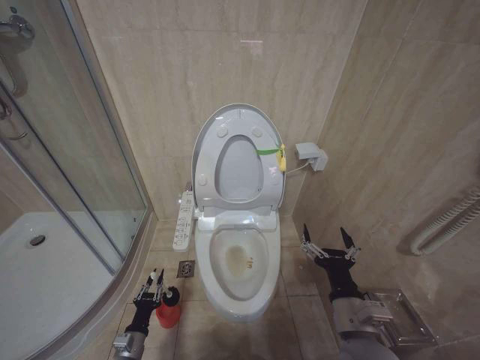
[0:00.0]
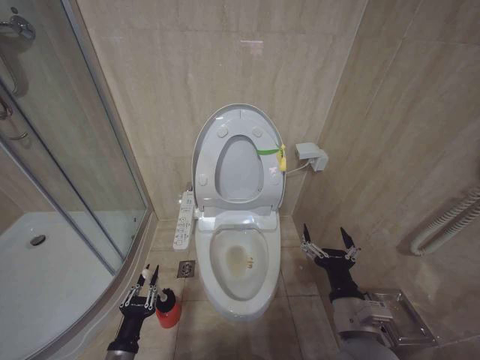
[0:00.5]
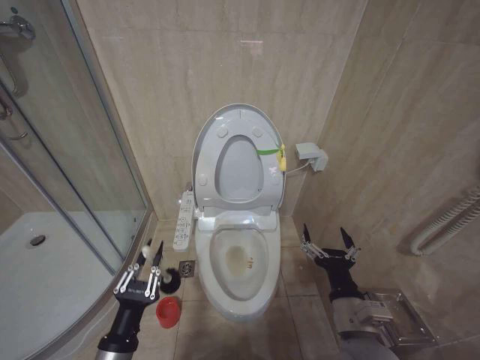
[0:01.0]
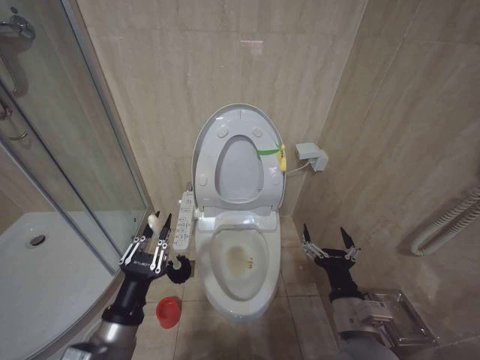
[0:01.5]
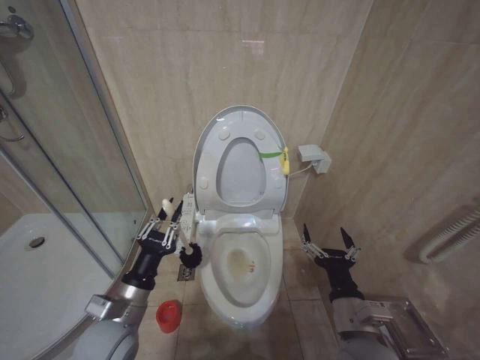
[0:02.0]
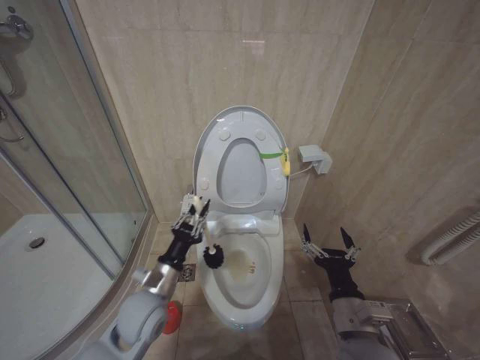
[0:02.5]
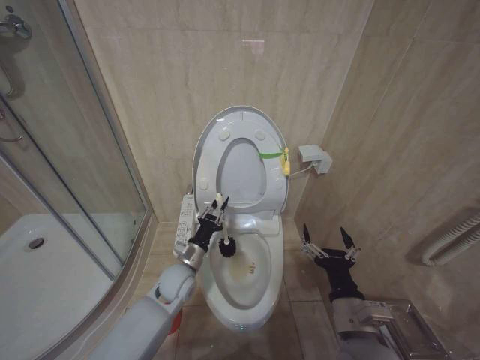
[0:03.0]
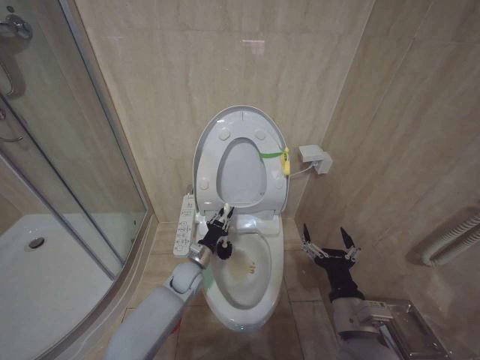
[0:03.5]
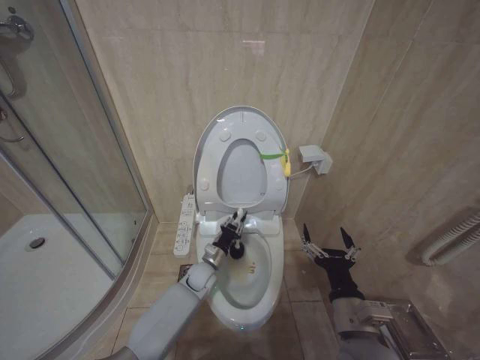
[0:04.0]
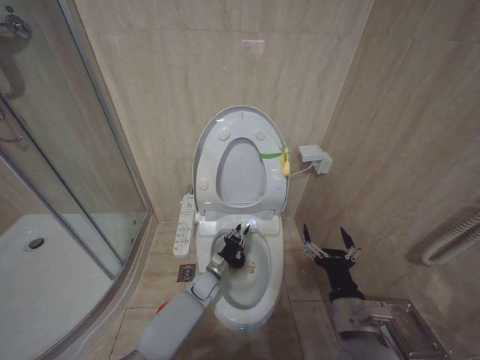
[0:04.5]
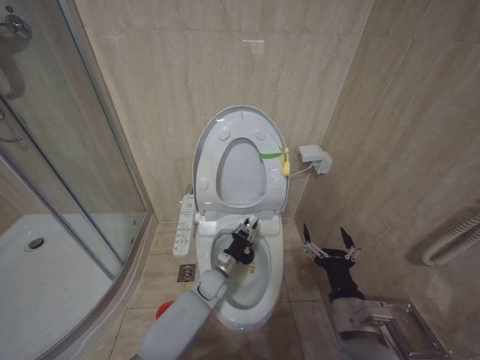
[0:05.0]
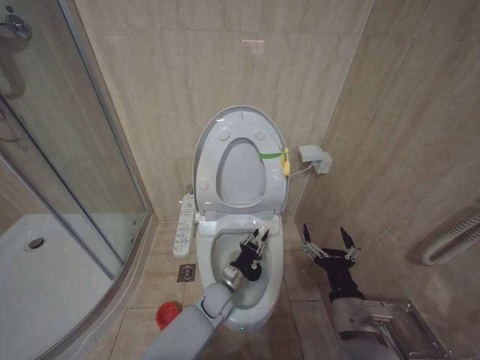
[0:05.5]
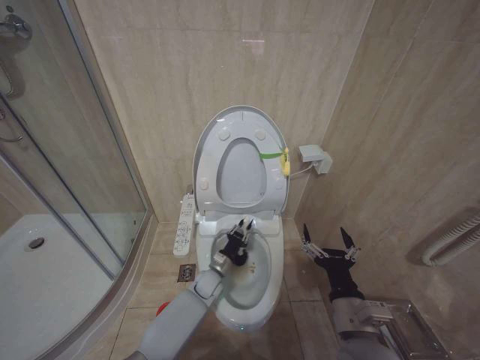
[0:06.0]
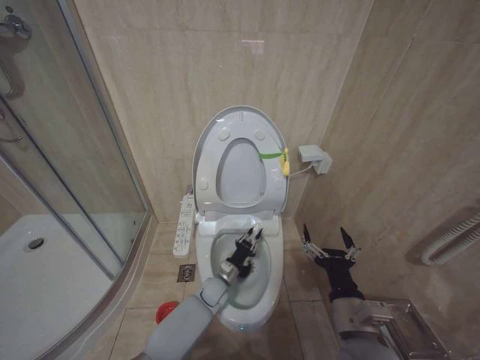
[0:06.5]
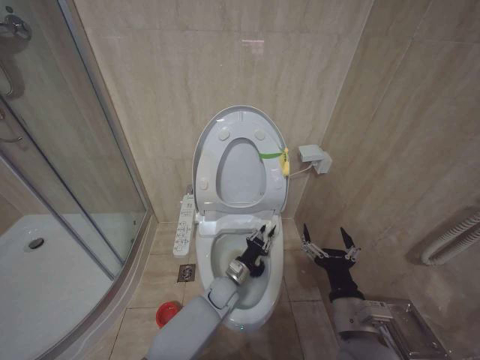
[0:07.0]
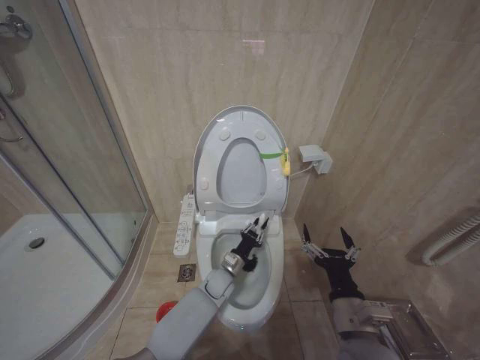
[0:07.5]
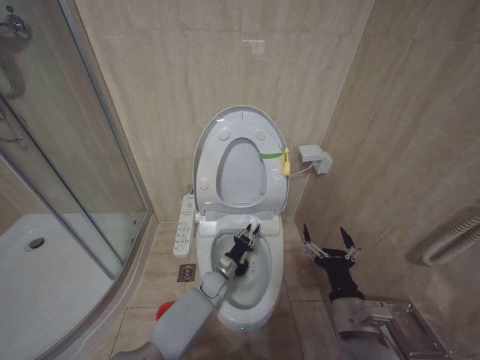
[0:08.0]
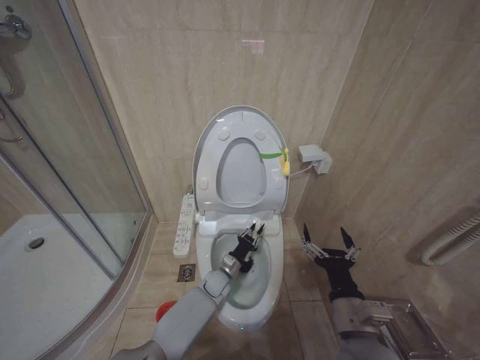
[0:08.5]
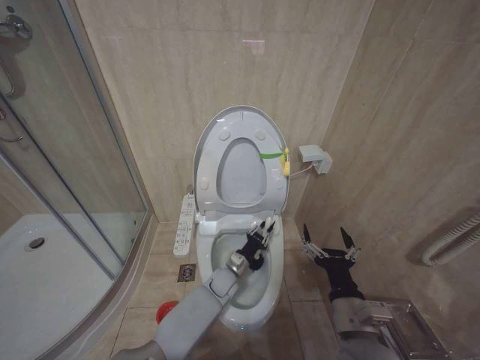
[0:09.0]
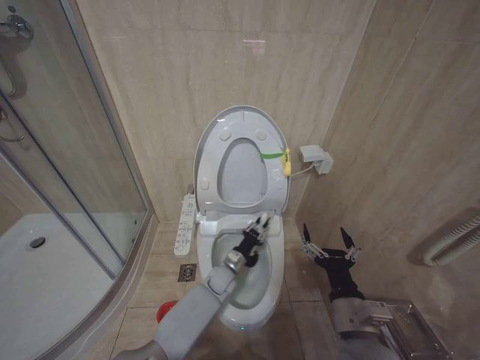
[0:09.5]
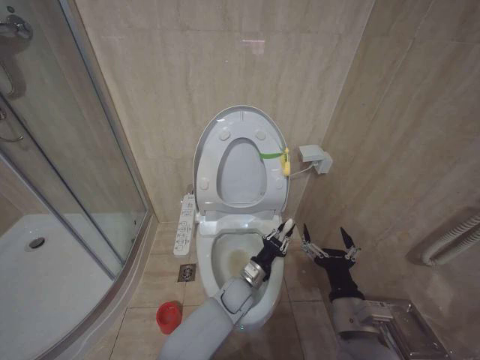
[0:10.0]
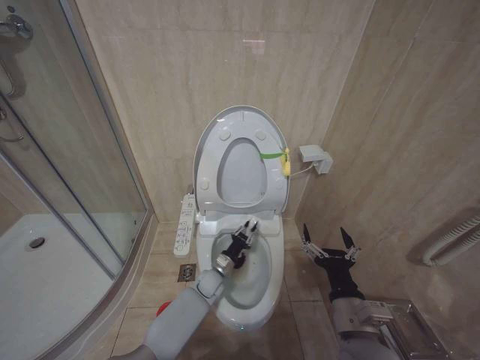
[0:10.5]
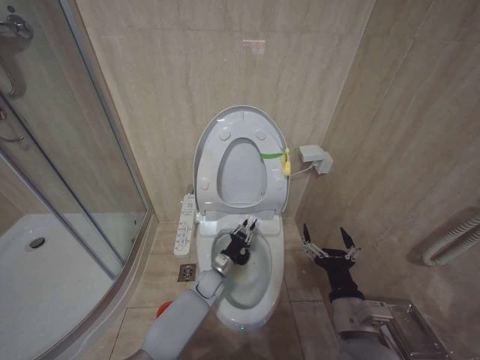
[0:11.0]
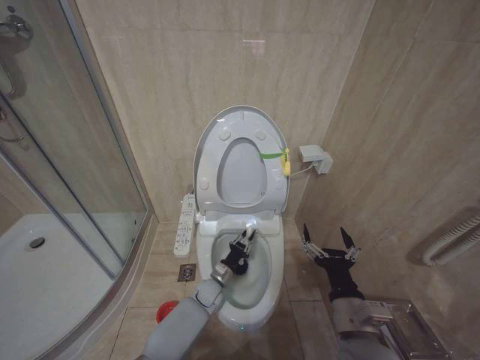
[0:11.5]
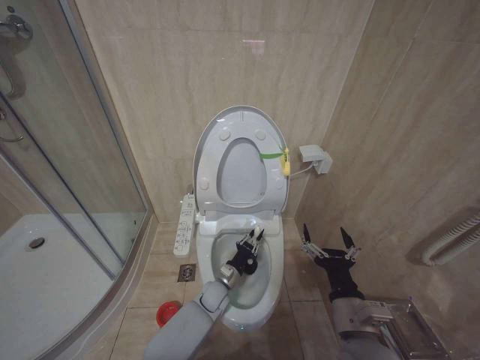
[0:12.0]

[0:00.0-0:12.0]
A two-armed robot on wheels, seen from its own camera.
Task of the whole recording: Open the toilet lid, clean the toilet bowl with a toilet brush, close the toilet lid, and flush.
0:00.0 to 0:02.0: The left gripper is displaced upward by approximately 30 cm.
0:02.0 to 0:04.0: The left gripper moves forward, downward and to the right, roughly 30 cm.
0:08.0 to 0:10.0: The left gripper heads to the right, upward and backward, covering some 10 cm.
0:10.0 to 0:12.0: The left gripper travels to the left by approximately 5 cm.

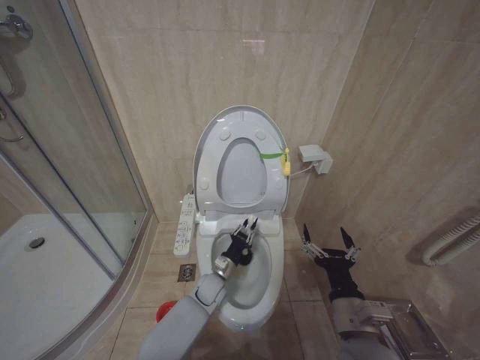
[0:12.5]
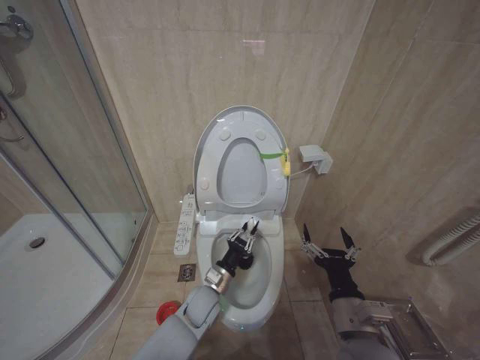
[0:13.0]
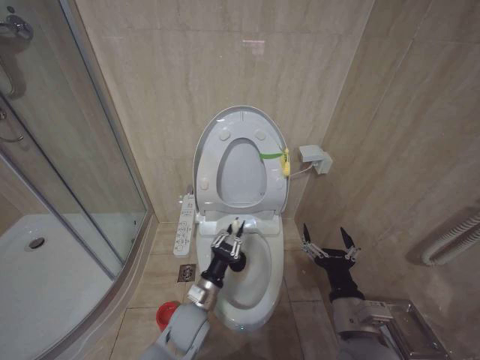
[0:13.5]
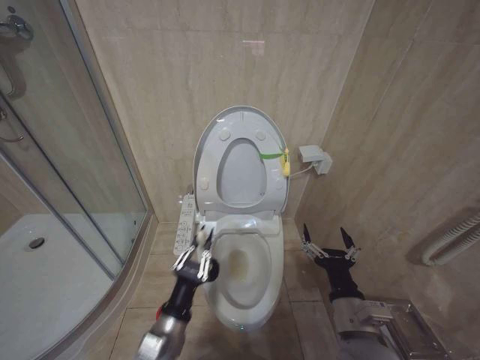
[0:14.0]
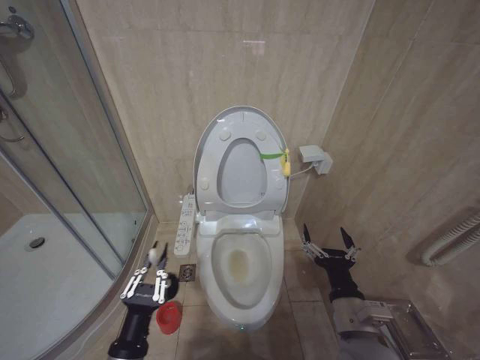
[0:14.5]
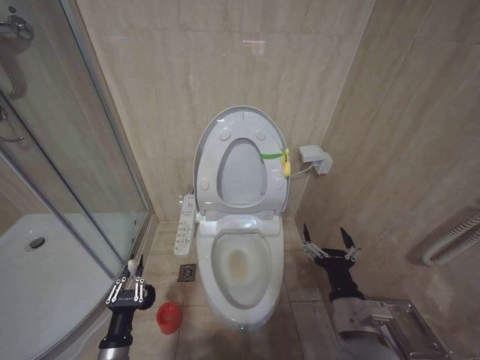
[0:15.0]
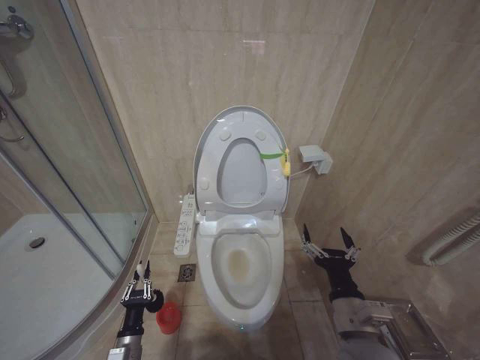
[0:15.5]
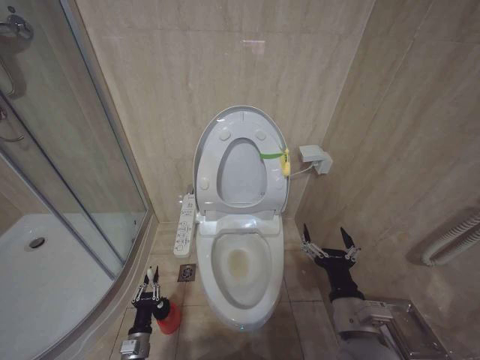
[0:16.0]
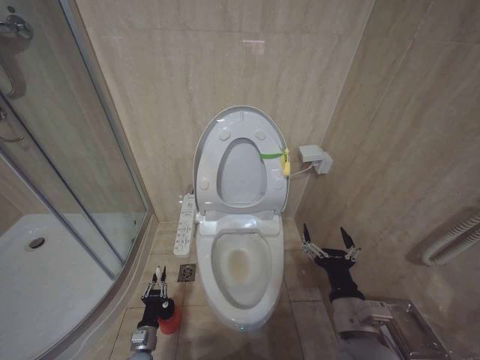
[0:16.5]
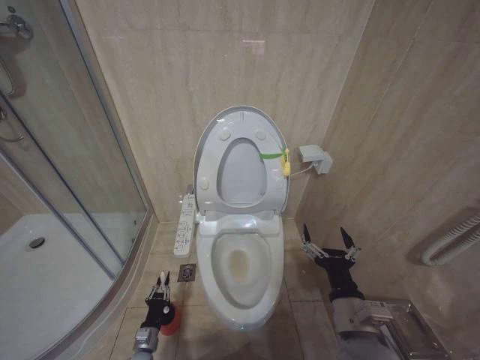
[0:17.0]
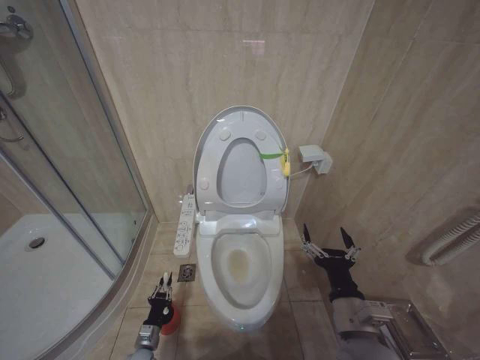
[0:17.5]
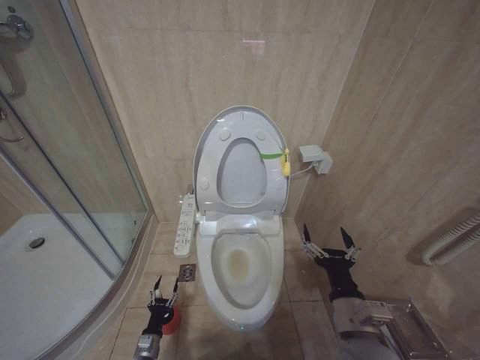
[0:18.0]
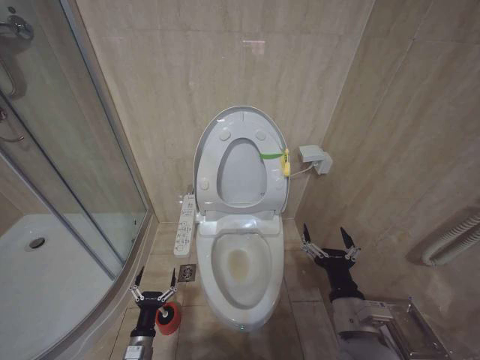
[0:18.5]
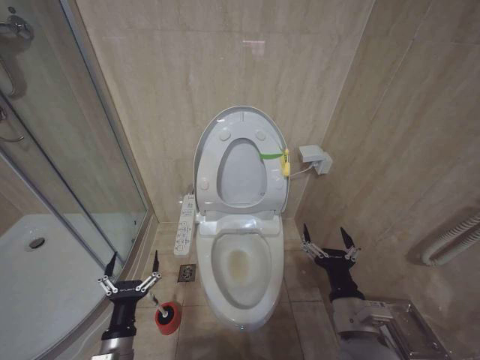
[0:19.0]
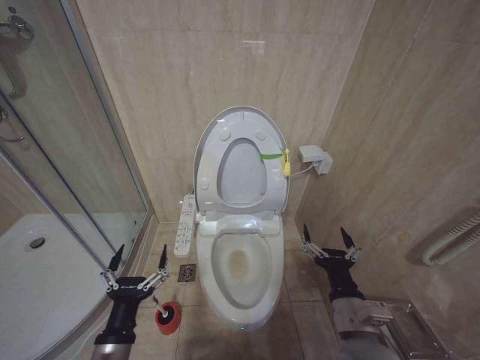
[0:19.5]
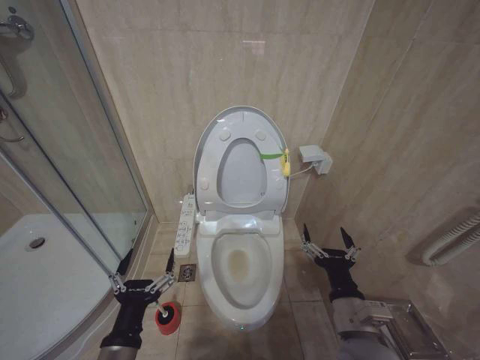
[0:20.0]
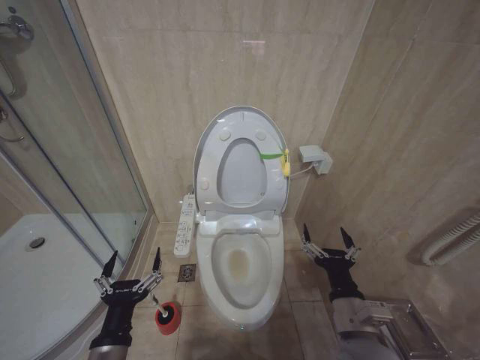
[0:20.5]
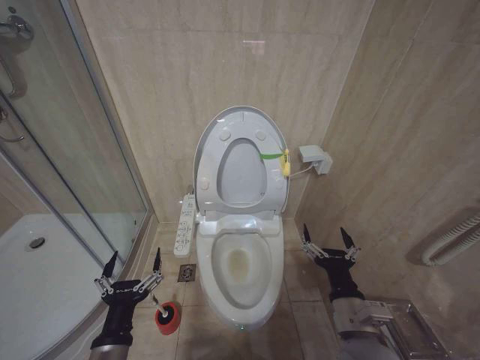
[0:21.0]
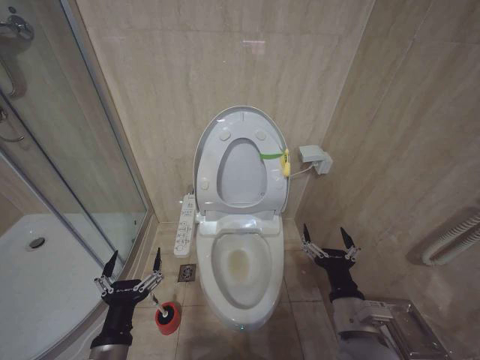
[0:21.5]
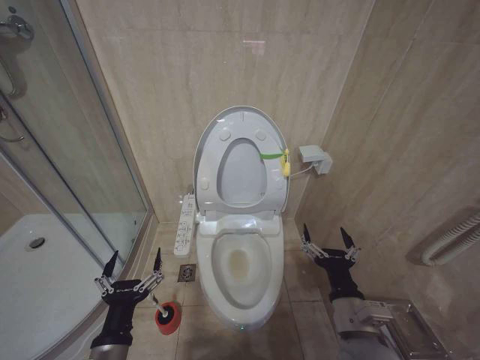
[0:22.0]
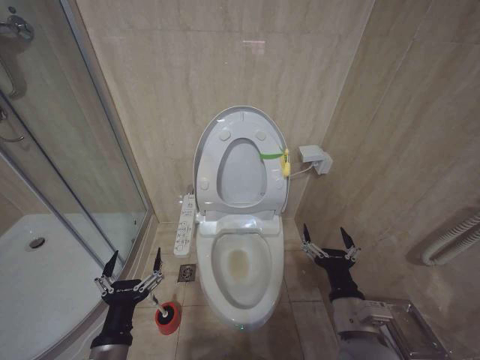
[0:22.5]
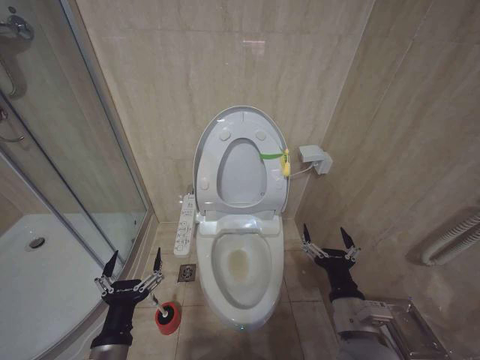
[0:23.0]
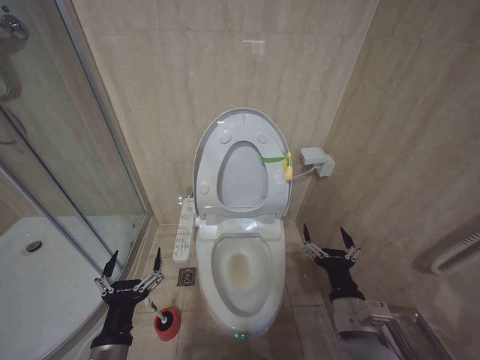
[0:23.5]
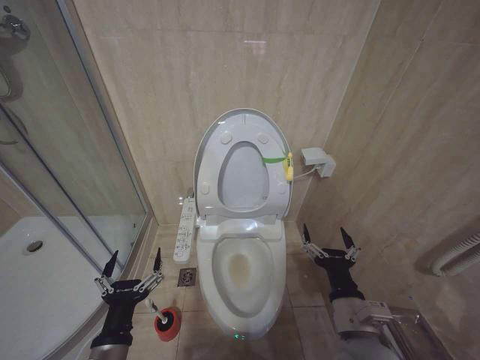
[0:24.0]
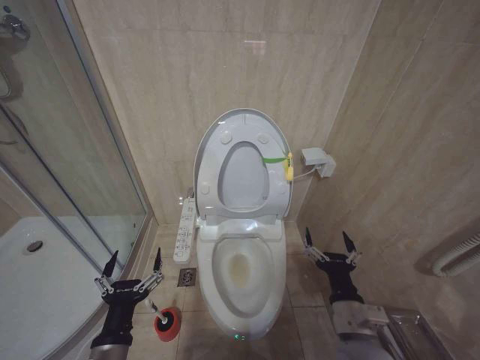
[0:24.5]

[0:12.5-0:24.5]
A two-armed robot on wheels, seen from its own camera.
Task of the whole recording: Open the toilet lid, clean the toilet bowl with a toilet brush, close the toilet lid, and flush.
0:12.5 to 0:14.5: The left gripper shifts about 35 cm backward, upward and to the left.
0:14.5 to 0:16.5: The left gripper is displaced downward and forward by roughly 30 cm.
0:16.5 to 0:18.5: The left gripper heads upward, covering about 5 cm, and opens up.
0:18.5 to 0:20.5: The left gripper heads upward, covering some 25 cm.
0:20.5 to 0:24.5: Both grippers stay put.

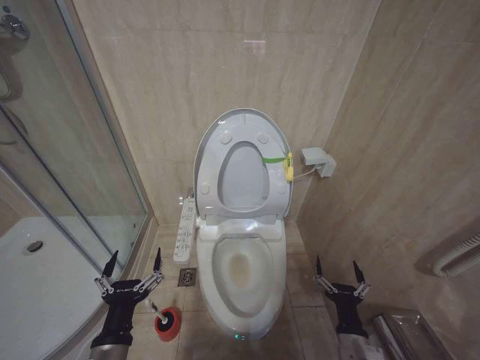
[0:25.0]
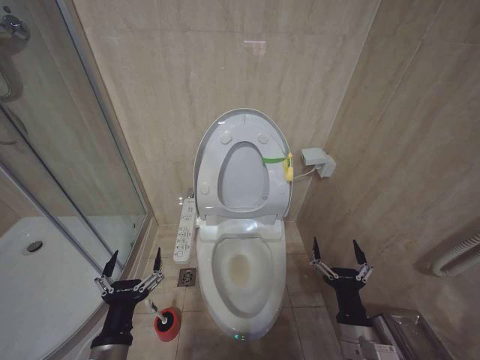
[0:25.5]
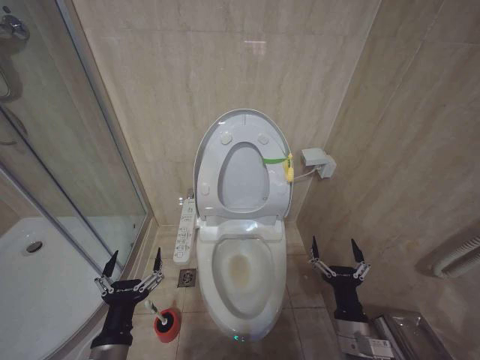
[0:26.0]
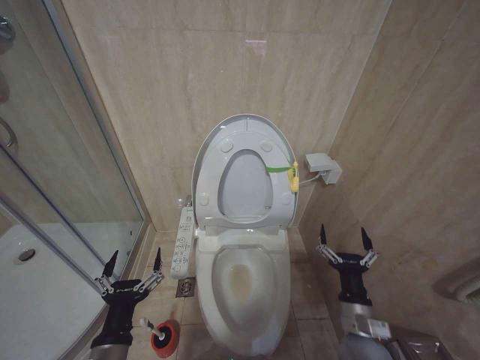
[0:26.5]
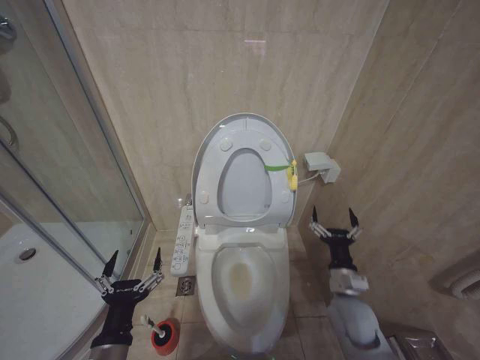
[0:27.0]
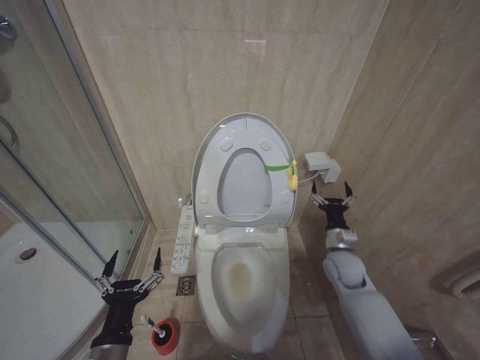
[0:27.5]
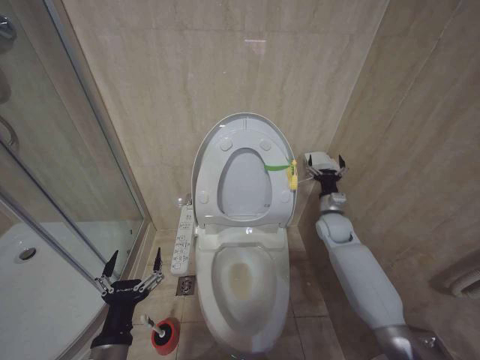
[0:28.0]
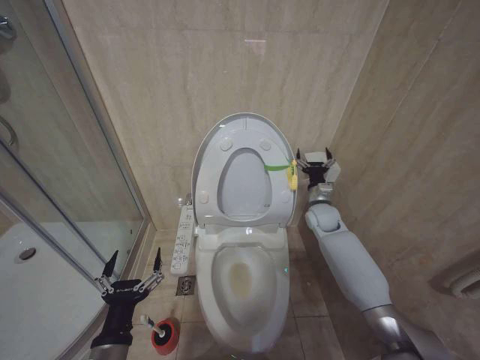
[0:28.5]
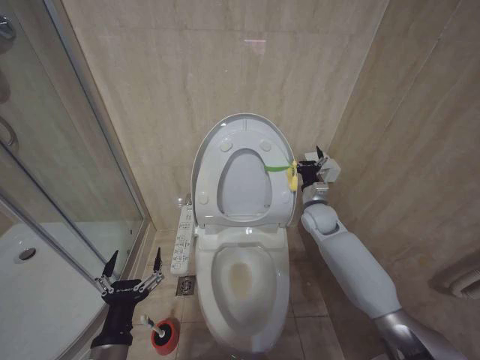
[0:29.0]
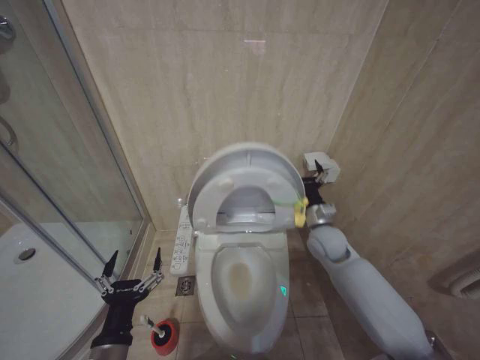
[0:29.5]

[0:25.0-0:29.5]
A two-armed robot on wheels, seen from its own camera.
Task of the whole recording: Open the toilet lid, clean the toilet bowl with a toilet brush, close the toilet lid, and flush.
0:25.0 to 0:27.0: The right gripper shifts approximately 10 cm forward and upward.
0:27.0 to 0:29.5: The right gripper heads forward and upward, covering approximately 20 cm.
